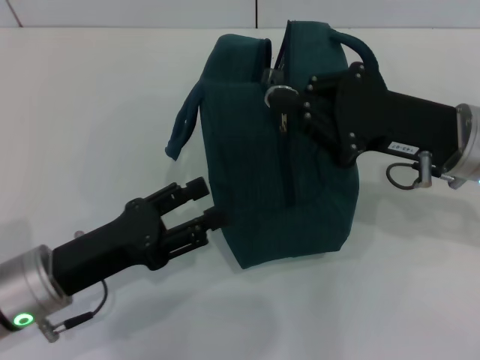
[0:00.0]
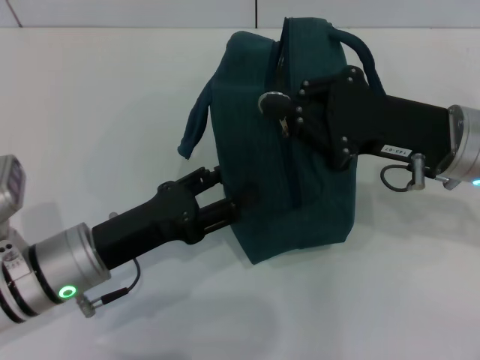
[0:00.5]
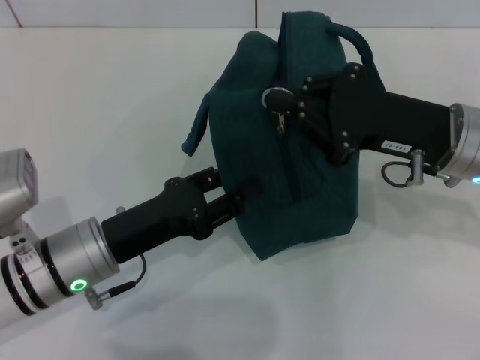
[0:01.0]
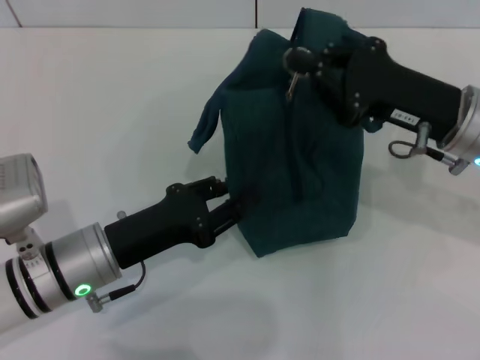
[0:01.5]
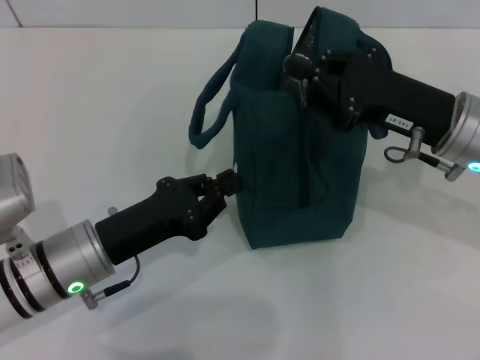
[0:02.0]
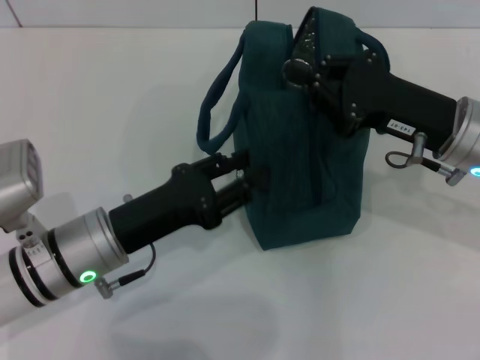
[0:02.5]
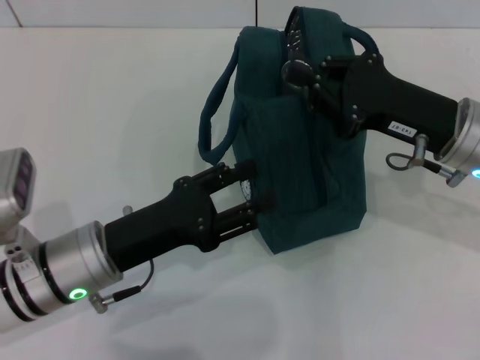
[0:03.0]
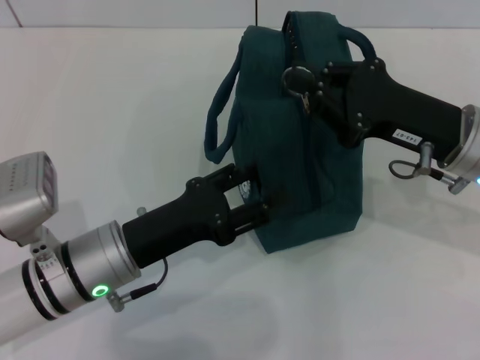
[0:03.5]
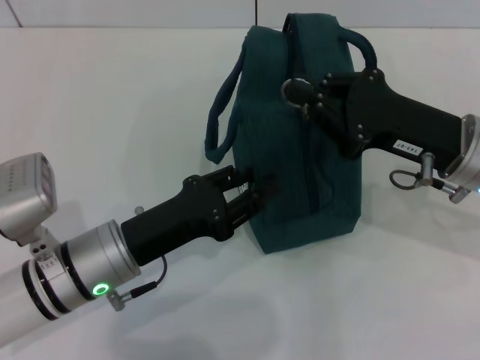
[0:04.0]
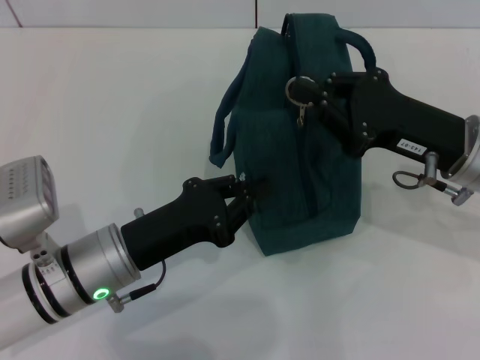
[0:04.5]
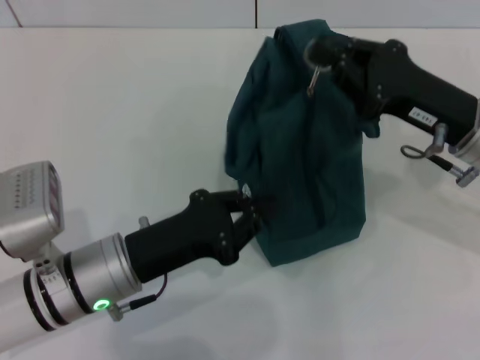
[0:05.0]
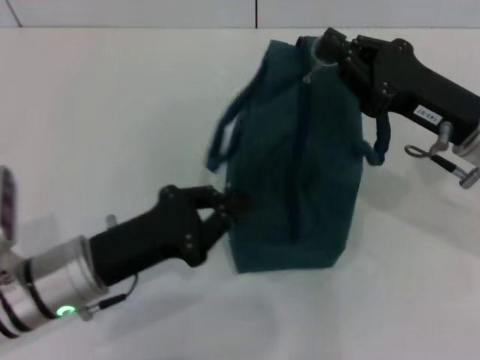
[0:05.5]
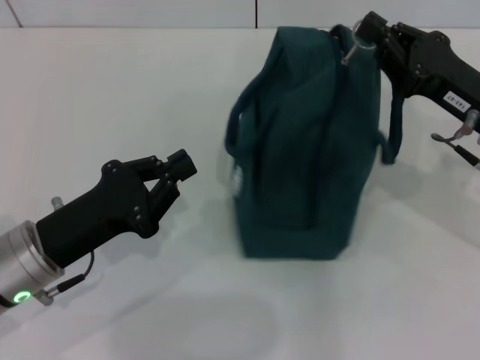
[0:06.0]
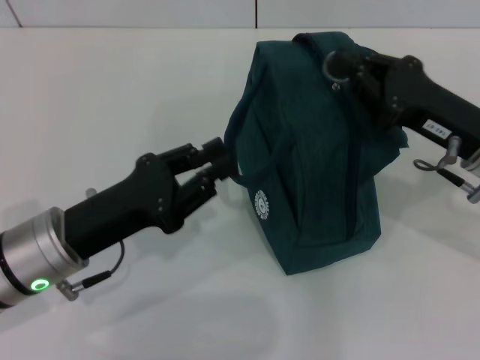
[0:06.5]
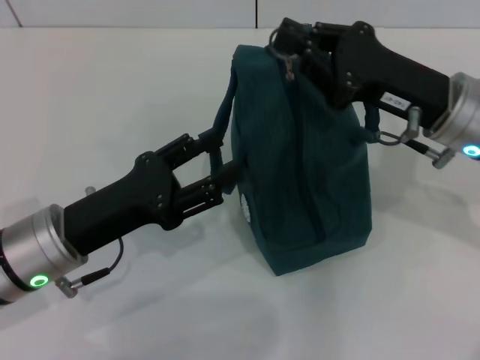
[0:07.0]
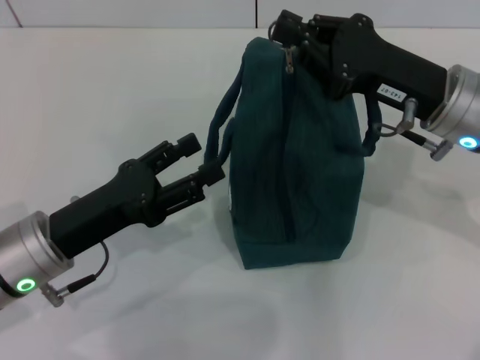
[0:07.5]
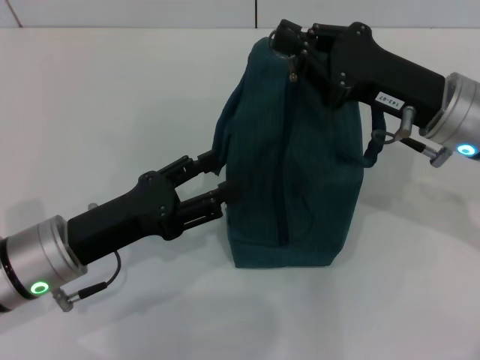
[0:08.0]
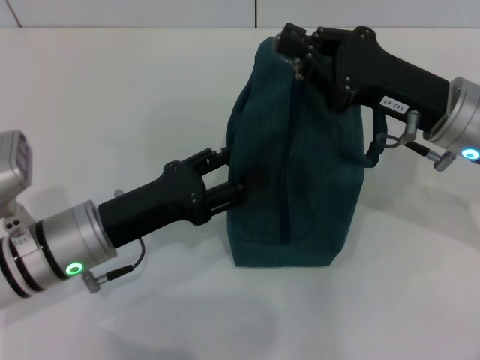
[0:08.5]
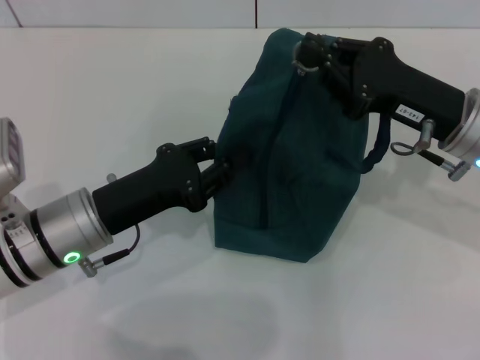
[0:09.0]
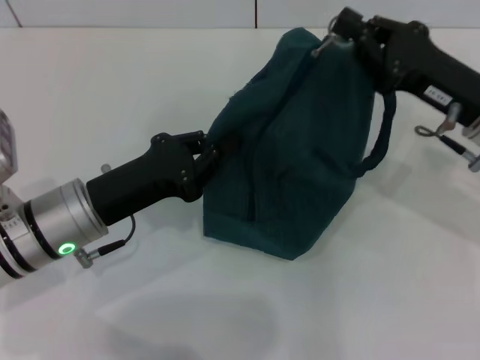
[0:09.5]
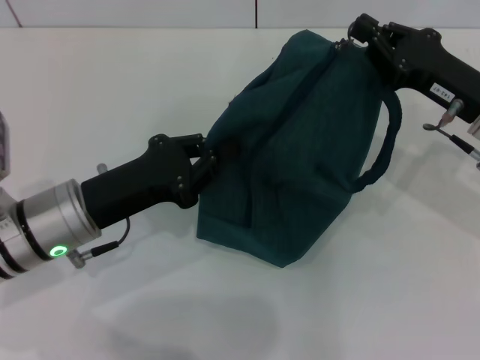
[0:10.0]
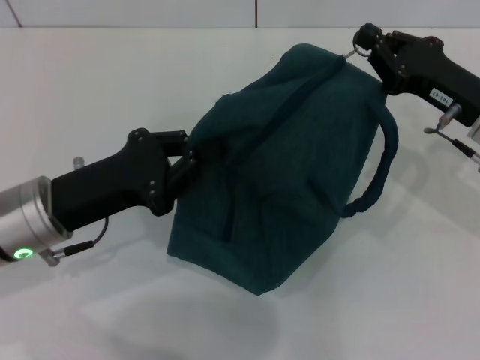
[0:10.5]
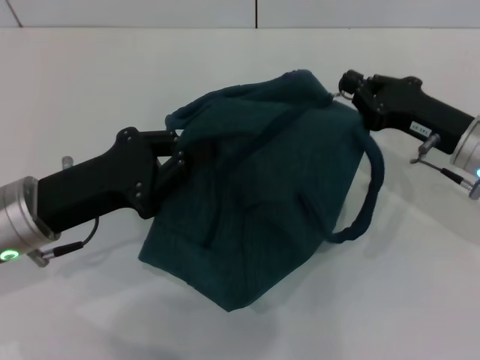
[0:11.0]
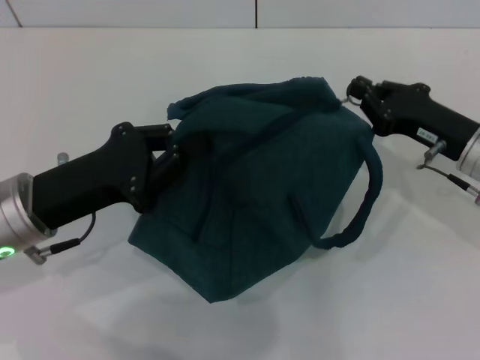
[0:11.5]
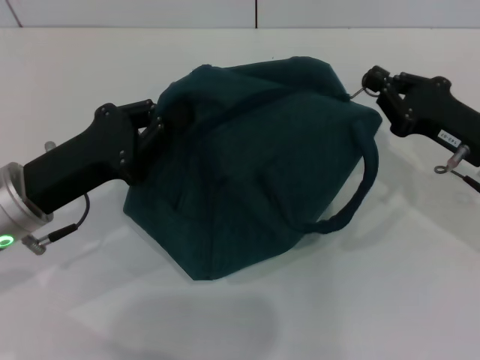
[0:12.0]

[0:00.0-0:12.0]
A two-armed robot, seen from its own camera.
0.0 to 2.0 s: The left gripper closes its fingers.
2.0 to 4.0 s: The left gripper opens up.
4.0 to 6.0 s: The left gripper is displaced to the left by about 5 cm, and closes up.
6.0 to 8.0 s: The left gripper opens up; the right gripper travels to the left by roughly 5 cm.
8.0 to 10.0 s: The right gripper moves to the right, approximately 5 cm. The left gripper closes up.

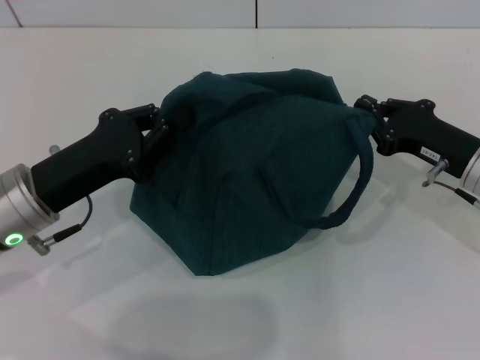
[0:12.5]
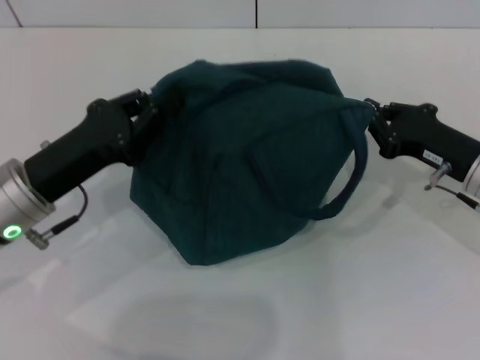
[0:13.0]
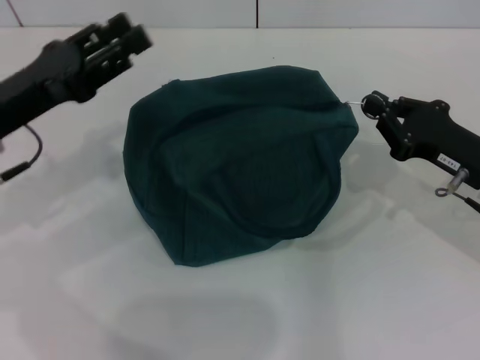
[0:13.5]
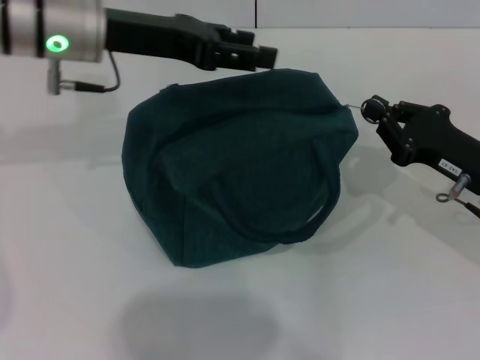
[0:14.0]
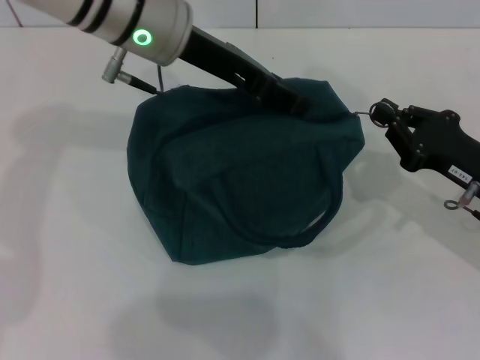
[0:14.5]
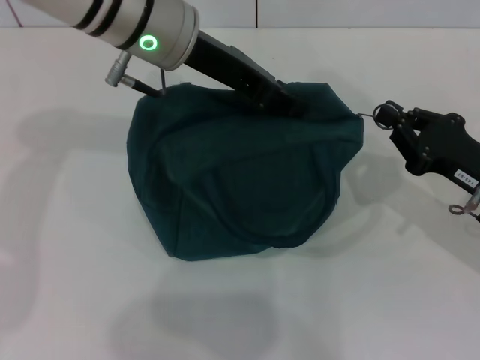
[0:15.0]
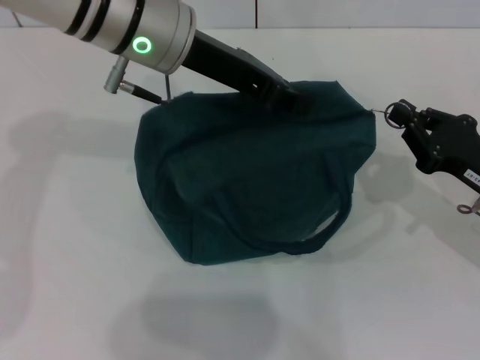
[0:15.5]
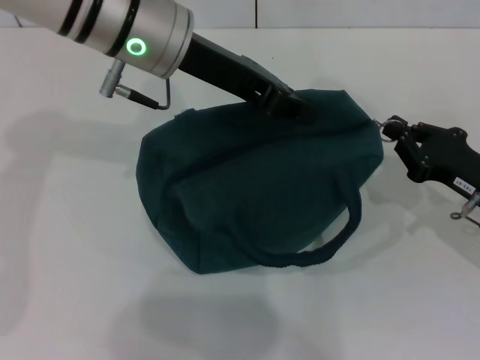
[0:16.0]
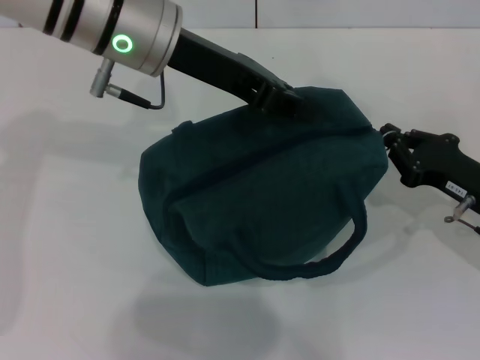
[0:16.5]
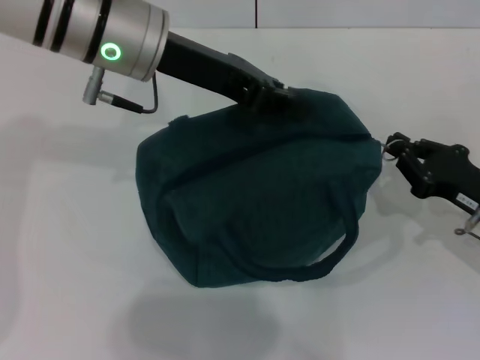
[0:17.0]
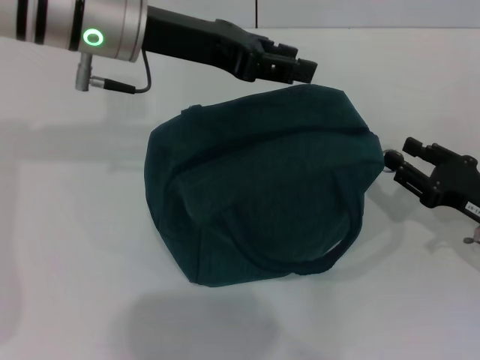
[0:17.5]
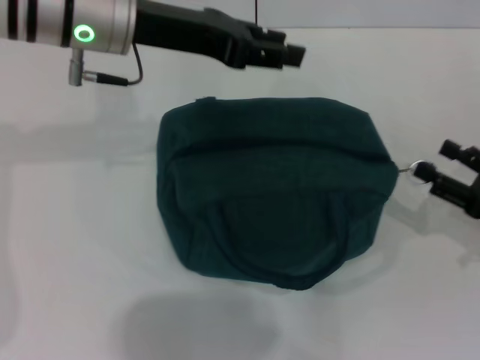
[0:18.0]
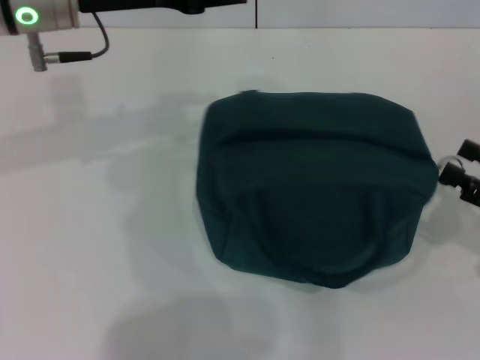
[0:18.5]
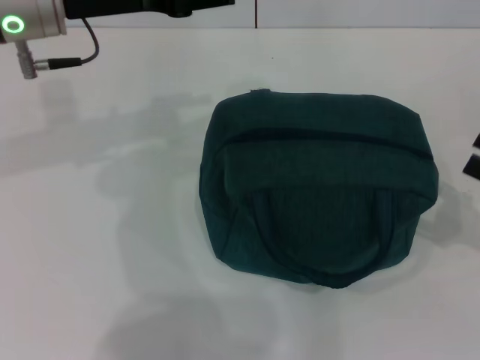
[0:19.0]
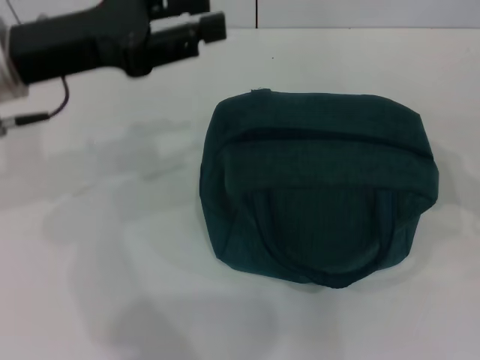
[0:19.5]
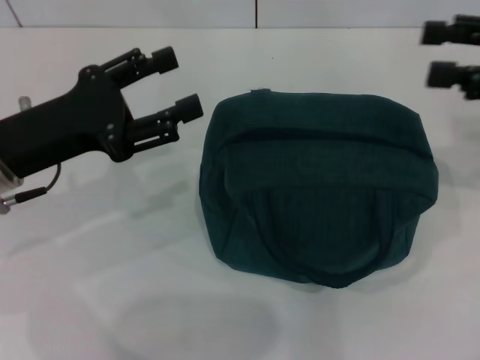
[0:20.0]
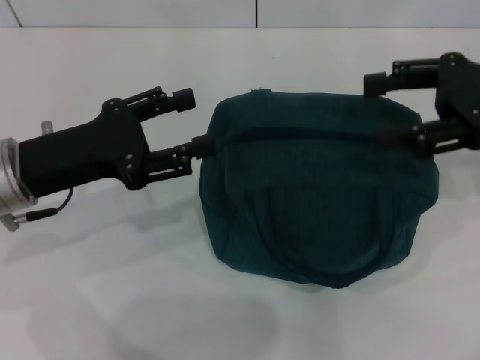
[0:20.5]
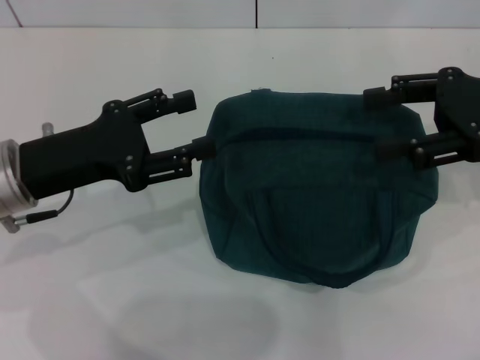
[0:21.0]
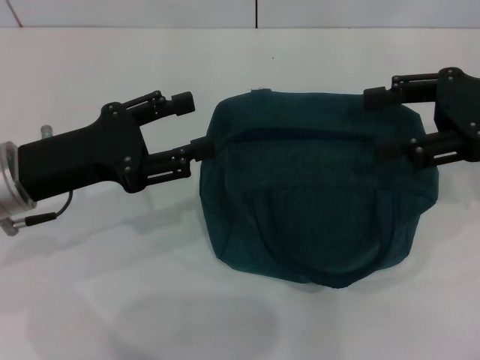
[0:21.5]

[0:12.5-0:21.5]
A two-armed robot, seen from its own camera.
Step, 12.5 to 17.5 s: Hold the lunch bag with your left hand.
12.5 to 14.5 s: The left gripper shifts some 25 cm forward, upward and to the right, and opens up.
14.5 to 17.0 s: The left gripper closes its fingers.
17.0 to 19.5 s: The left gripper travels to the left and backward by roughly 10 cm; the right gripper heads upward and to the right, covering roughly 15 cm, and opens its fingers.
19.5 to 21.5 s: The right gripper travels to the left and forward by approximately 10 cm; the left gripper moves downward, approximately 10 cm.

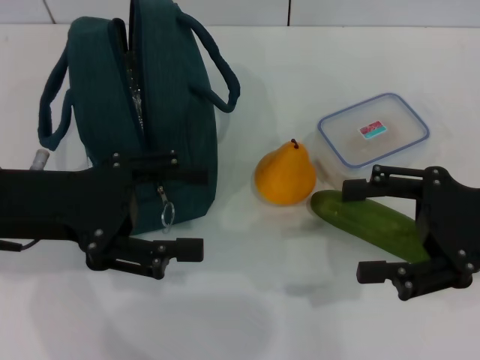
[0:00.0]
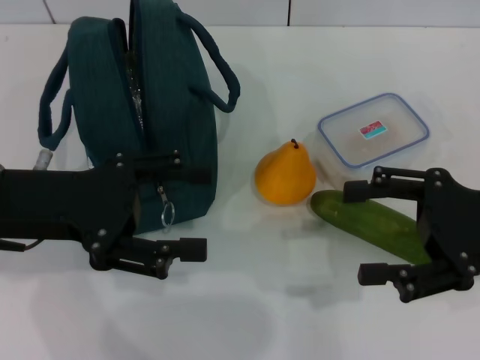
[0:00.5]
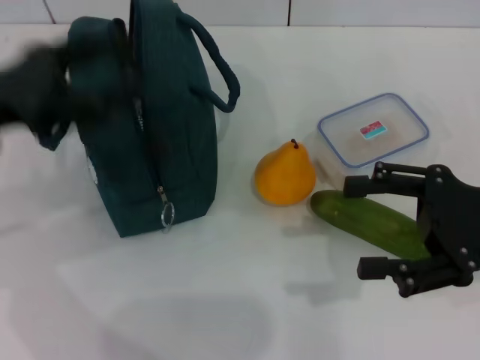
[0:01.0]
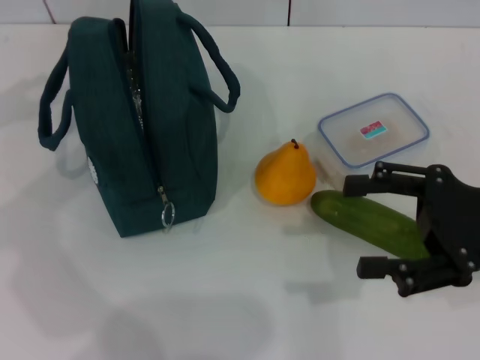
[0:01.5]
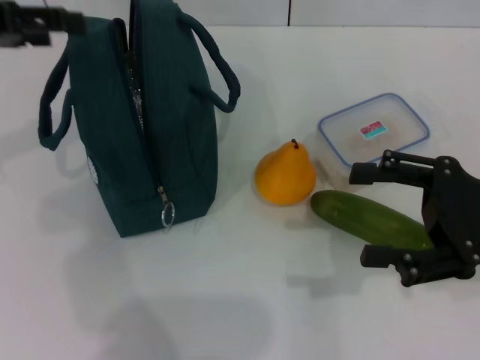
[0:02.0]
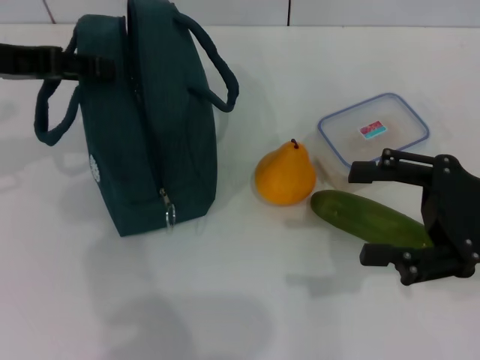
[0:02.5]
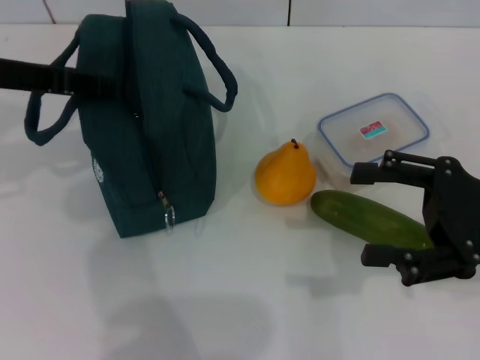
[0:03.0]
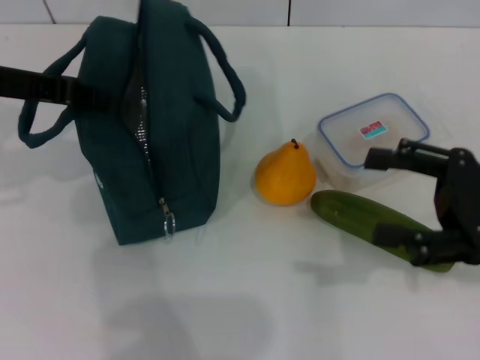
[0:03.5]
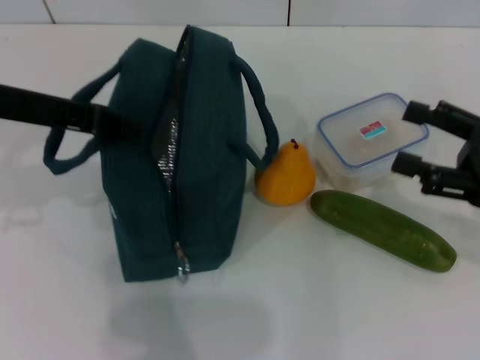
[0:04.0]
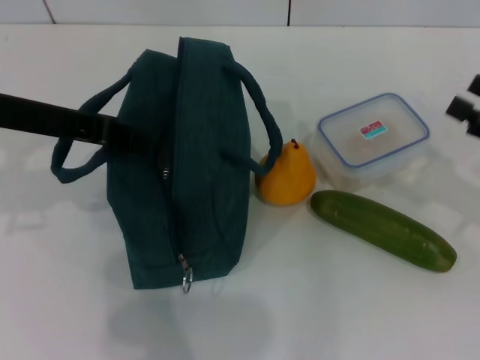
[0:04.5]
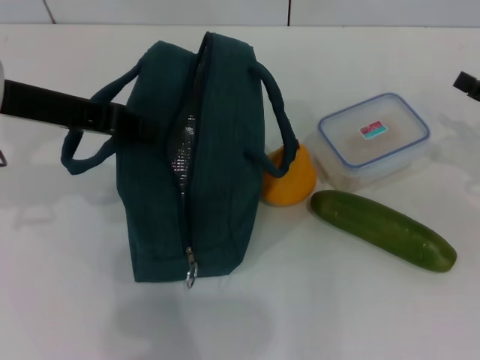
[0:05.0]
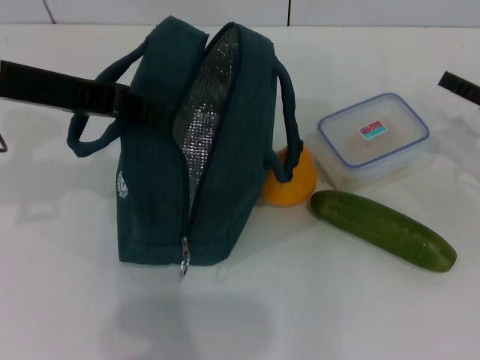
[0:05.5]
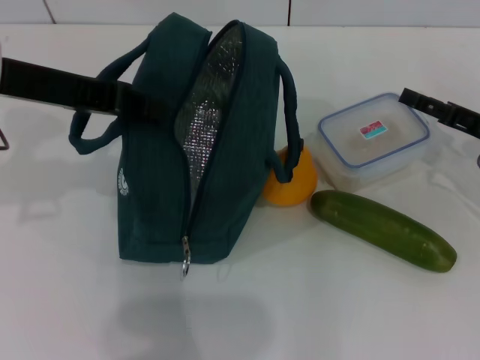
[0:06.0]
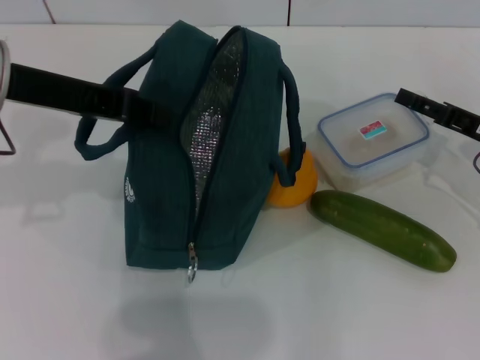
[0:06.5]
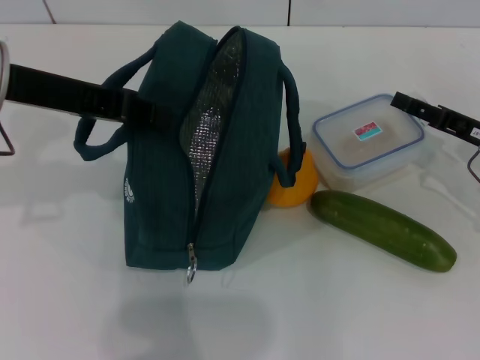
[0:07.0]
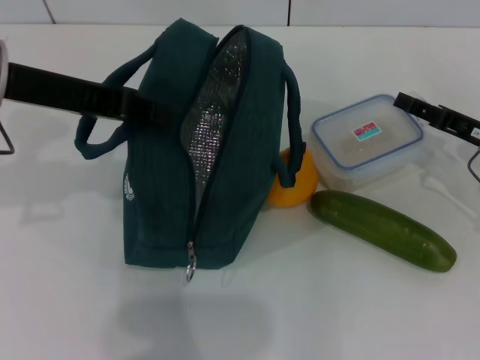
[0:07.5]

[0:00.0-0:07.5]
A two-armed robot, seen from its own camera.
Step, 0.0 to 3.0 s: Hold the lunch bag with your left hand.
0.0 to 2.0 s: The left gripper heads upward, forward and to the left, covering about 15 cm.
2.0 to 4.0 s: The left gripper heads to the right, covering some 5 cm, and closes.
4.0 to 5.5 s: The right gripper shifts about 5 cm forward.
5.5 to 7.5 s: There are only small adjustments of the grippers.
